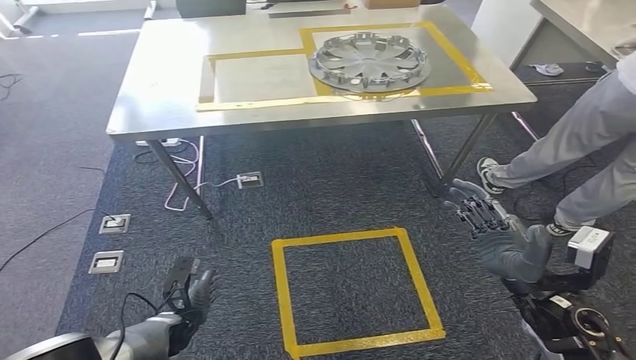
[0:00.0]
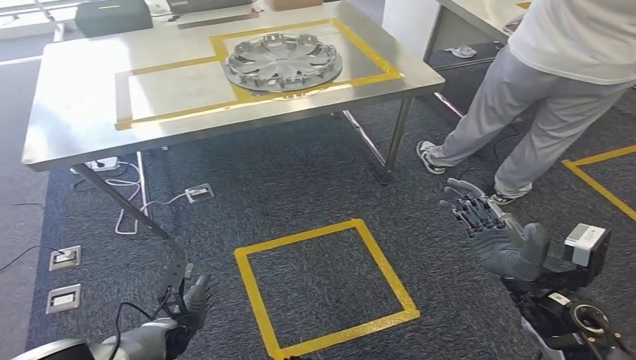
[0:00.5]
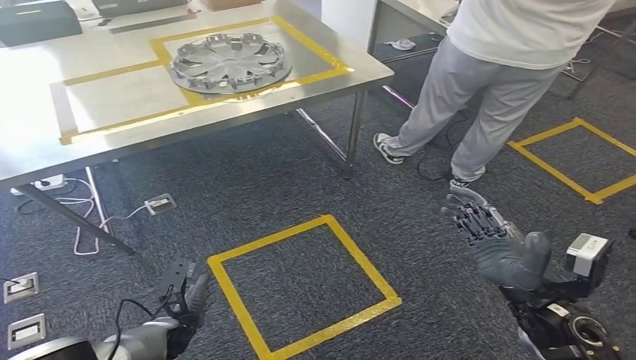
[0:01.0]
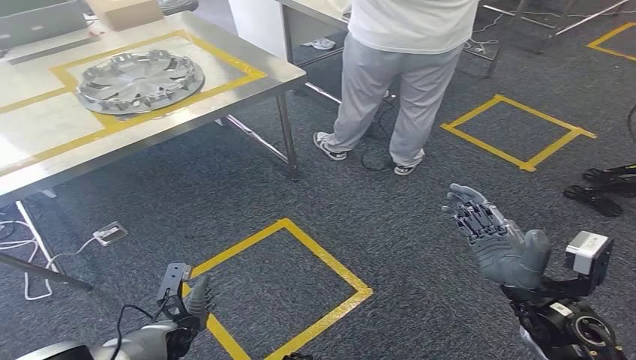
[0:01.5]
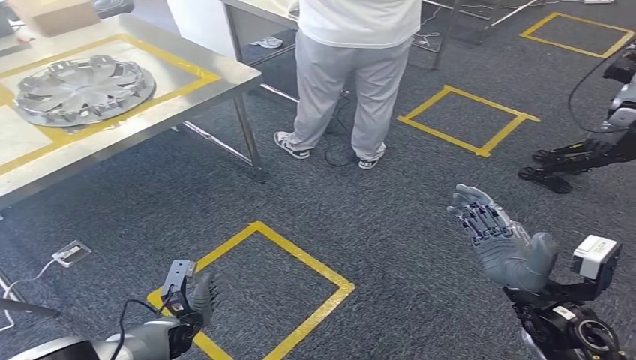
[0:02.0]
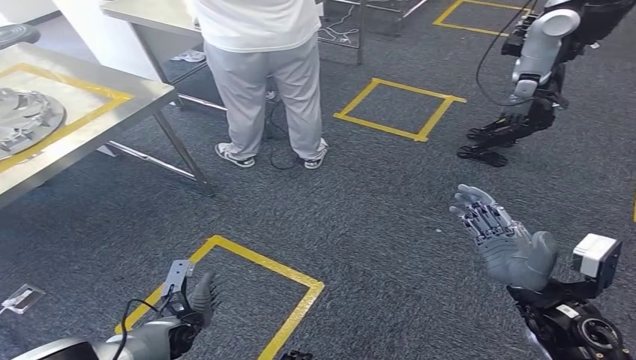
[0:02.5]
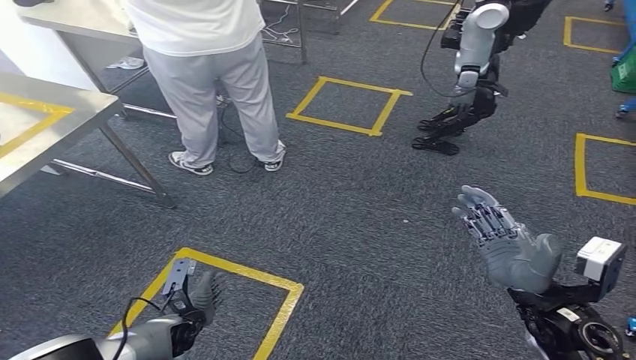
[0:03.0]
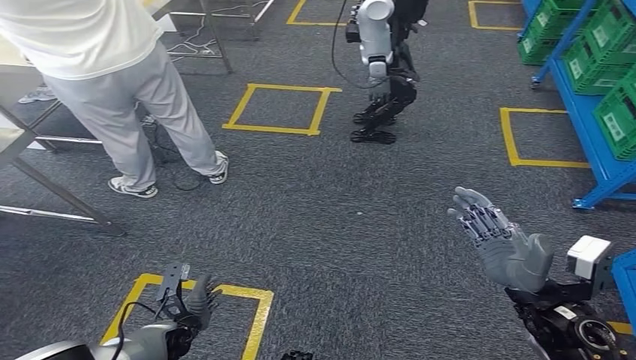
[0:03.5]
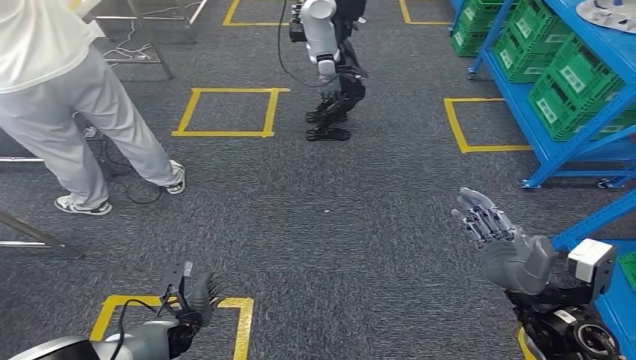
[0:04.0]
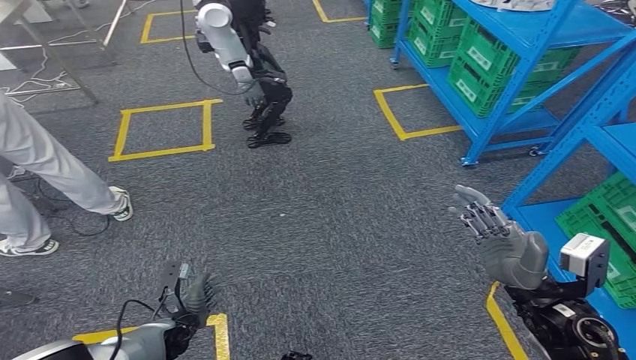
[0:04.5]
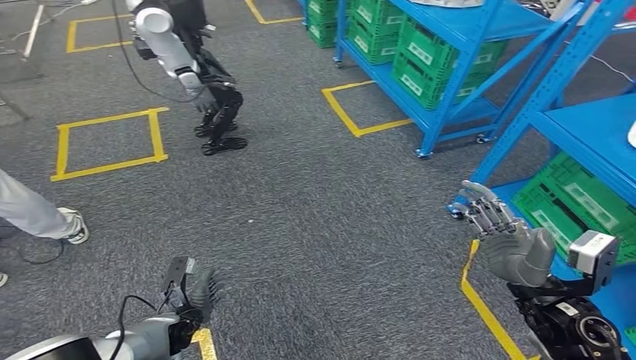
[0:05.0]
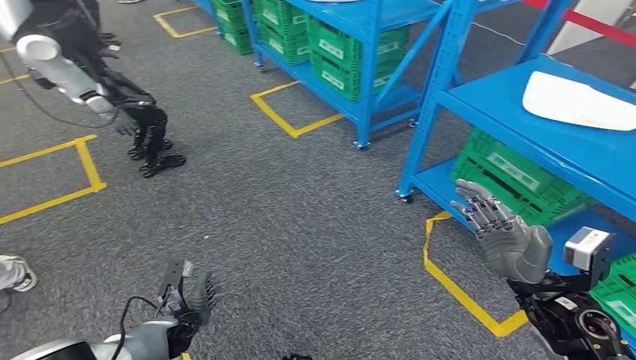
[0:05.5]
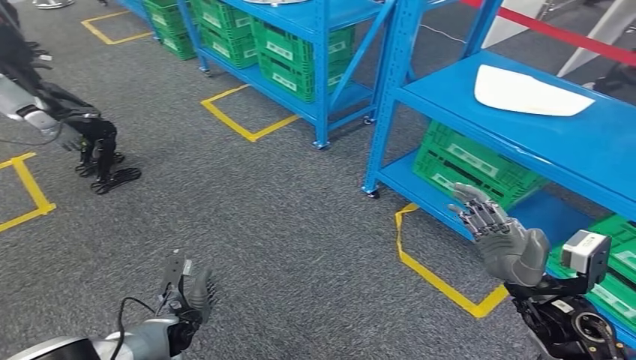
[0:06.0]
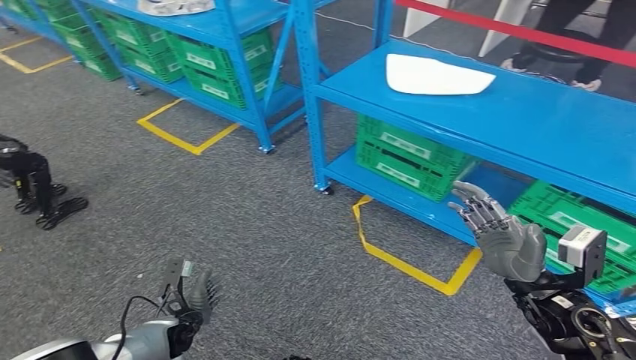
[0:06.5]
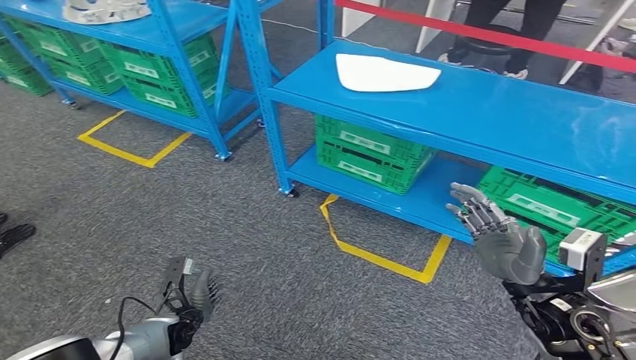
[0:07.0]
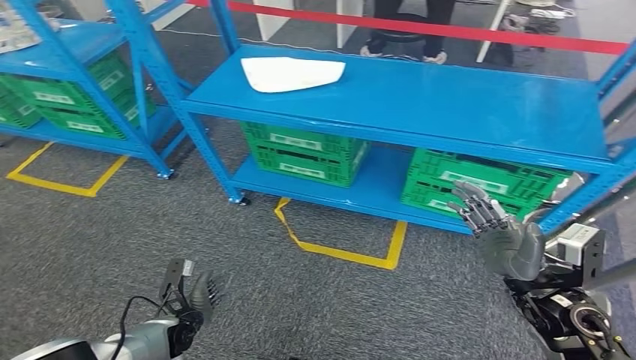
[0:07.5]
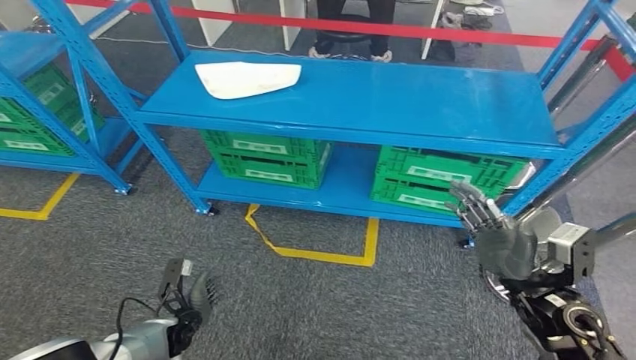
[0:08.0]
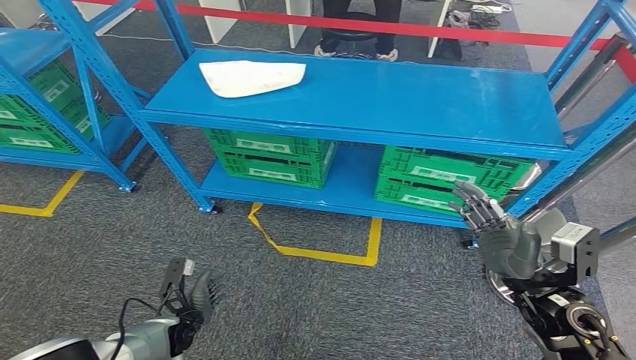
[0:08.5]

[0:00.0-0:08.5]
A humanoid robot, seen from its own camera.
Step, 0:00.0 to 0:08.5: Move to the initial position of the workbench.
